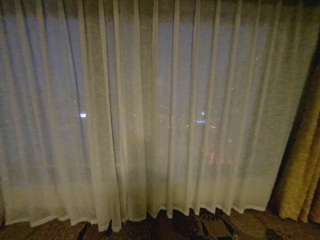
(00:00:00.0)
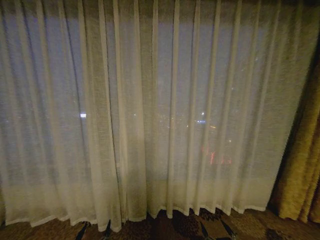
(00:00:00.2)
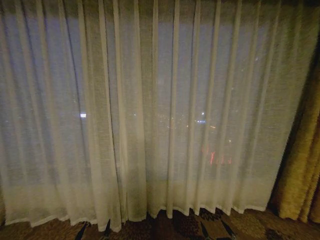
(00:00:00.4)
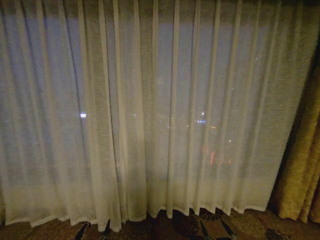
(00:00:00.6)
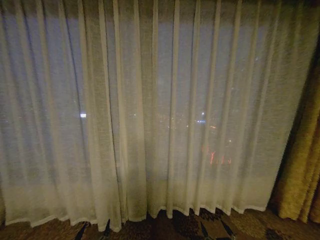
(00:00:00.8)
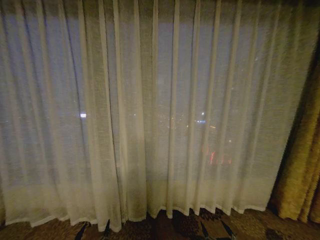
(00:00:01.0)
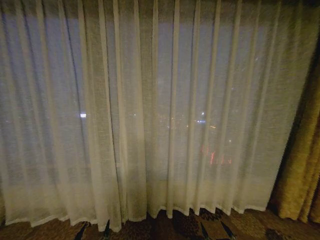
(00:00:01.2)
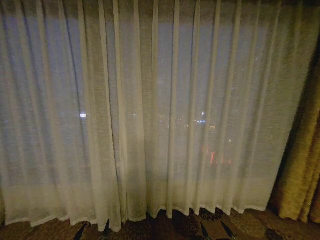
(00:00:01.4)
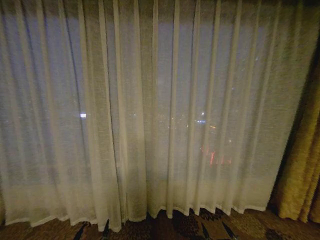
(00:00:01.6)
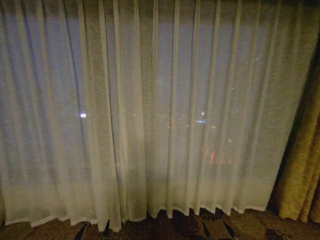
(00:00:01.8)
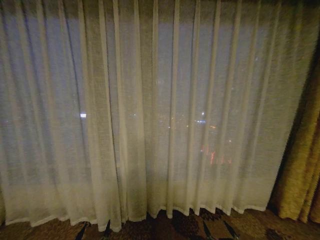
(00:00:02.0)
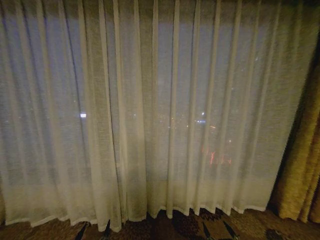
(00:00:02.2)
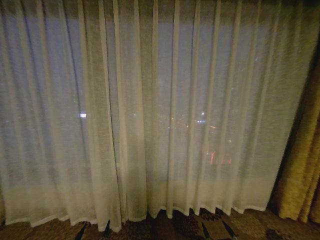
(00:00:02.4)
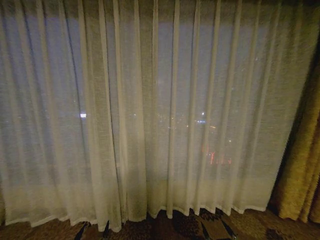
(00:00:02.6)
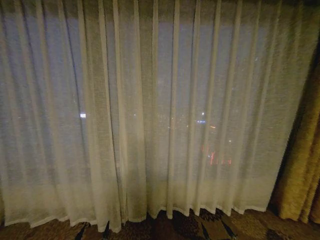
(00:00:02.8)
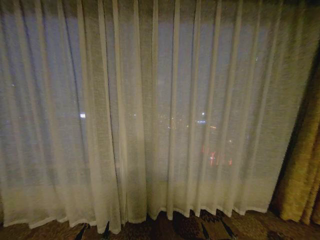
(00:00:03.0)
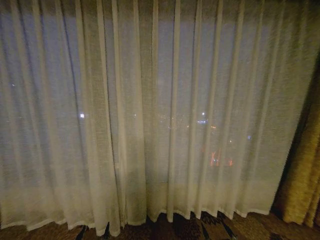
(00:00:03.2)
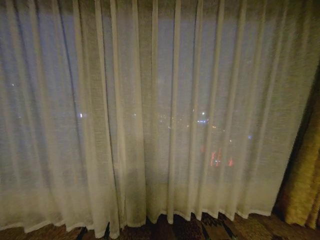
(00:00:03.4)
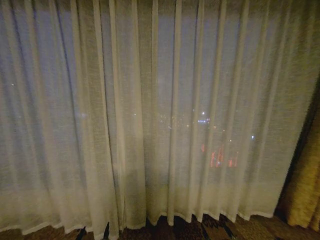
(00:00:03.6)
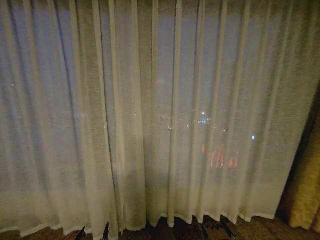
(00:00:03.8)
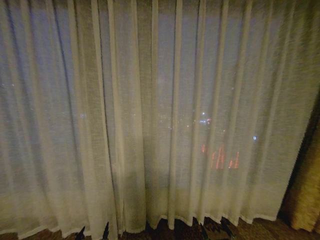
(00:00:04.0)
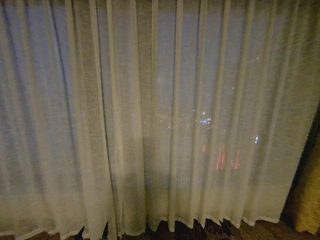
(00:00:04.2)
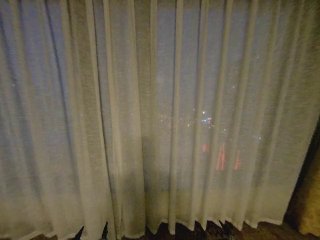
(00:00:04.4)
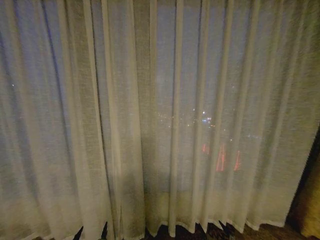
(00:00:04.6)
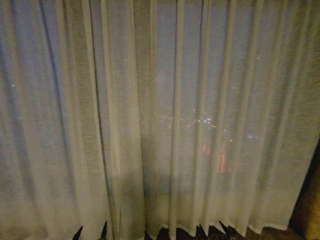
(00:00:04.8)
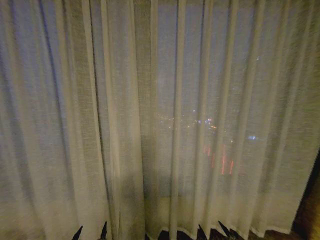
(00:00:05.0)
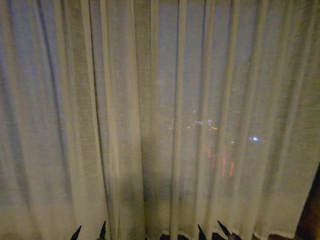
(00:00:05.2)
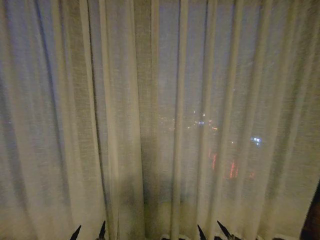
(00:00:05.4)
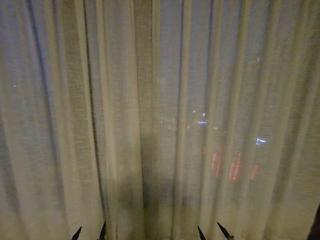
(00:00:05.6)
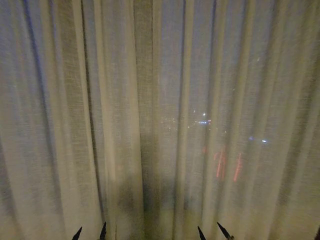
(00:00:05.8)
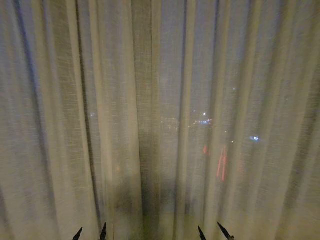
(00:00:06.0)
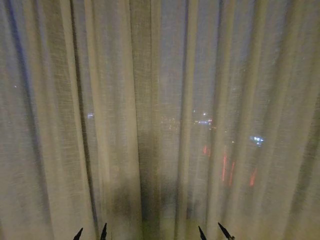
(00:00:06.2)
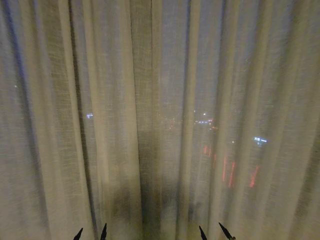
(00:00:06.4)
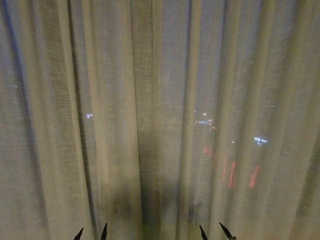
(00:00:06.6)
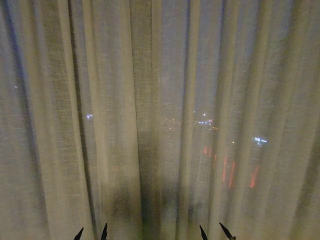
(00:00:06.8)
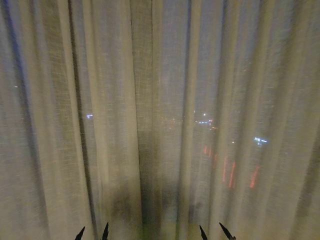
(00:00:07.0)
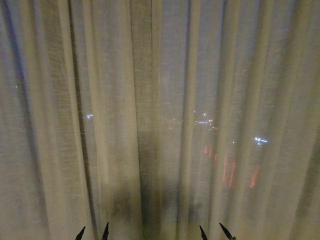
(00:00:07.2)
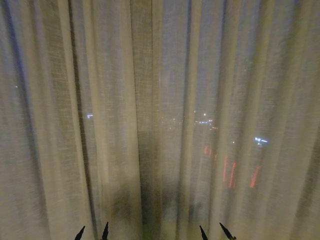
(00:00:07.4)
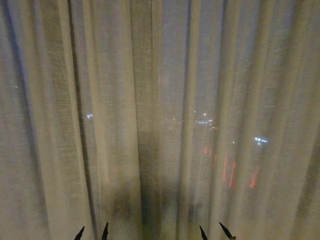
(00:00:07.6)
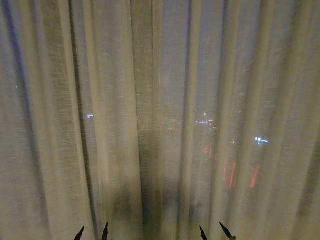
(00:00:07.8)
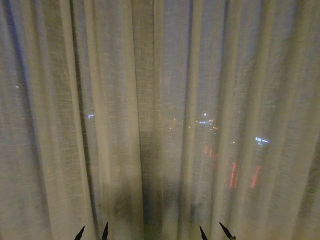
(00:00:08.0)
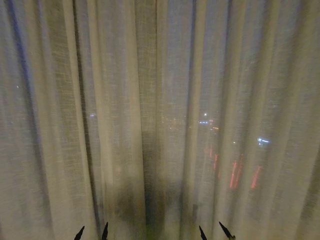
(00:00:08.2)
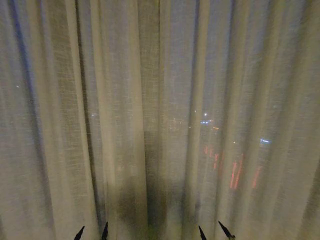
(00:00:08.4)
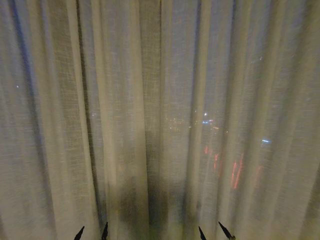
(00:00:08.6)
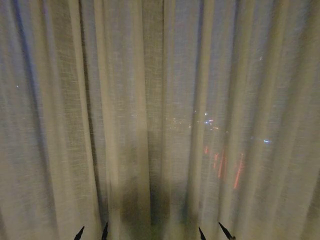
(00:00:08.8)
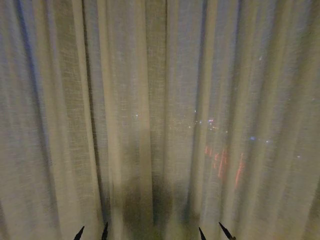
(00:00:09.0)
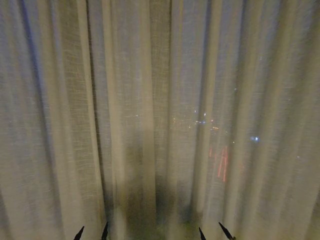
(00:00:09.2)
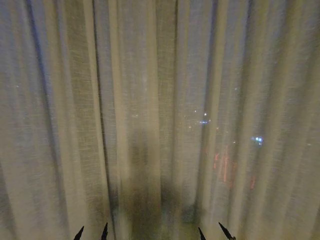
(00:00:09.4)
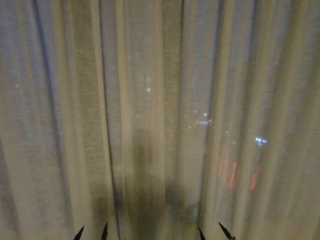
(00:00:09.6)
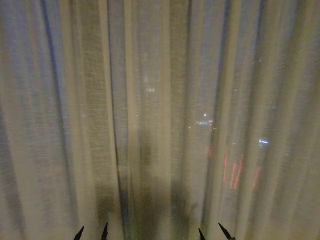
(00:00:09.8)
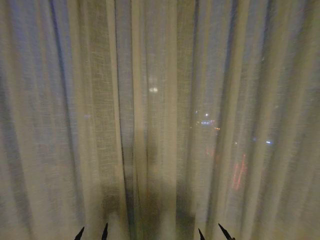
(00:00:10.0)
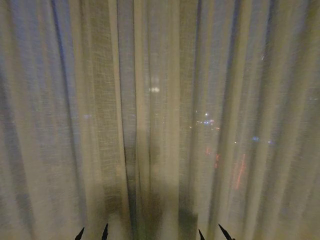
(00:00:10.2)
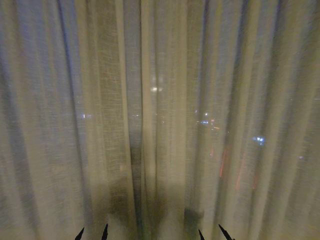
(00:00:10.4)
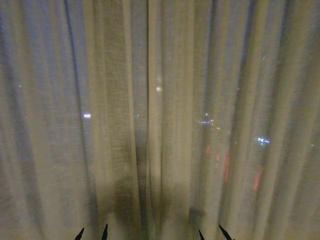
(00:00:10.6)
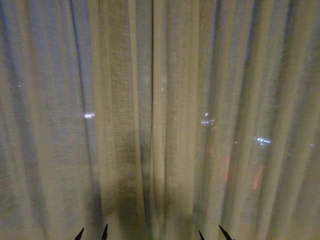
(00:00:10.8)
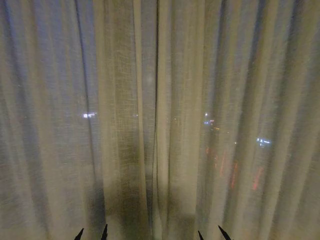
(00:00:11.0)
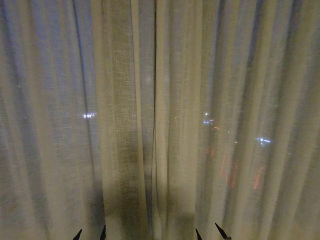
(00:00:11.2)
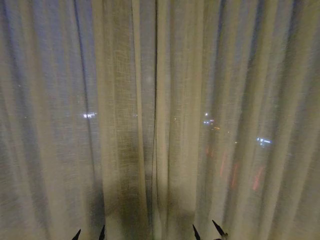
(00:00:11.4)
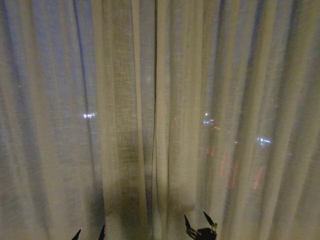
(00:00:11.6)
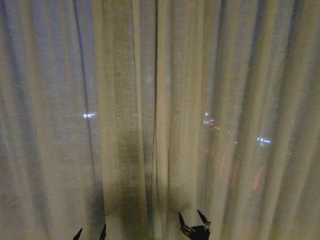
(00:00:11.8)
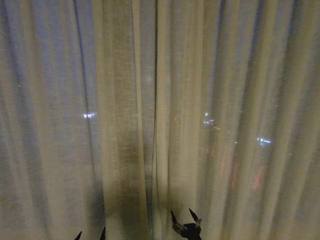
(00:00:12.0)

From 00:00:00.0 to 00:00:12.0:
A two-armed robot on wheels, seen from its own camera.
Task of the whole recording: Open the curtains by pulling them apart, changing their state from closed to fully open.
From 00:00:01.6 to 00:00:03.0: The grippers move only a little.
From 00:00:04.4 to 00:00:06.0: Both grippers stay about where they are.
From 00:00:06.0 to 00:00:07.6: Both grippers stay about where they are.
From 00:00:07.6 to 00:00:10.4: Both grippers stay put.
From 00:00:10.4 to 00:00:12.0: The right gripper heads to the left and forward, covering roughly 10 cm.

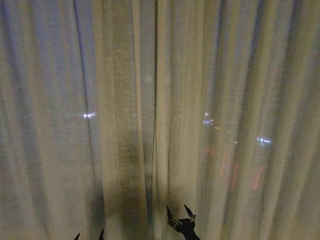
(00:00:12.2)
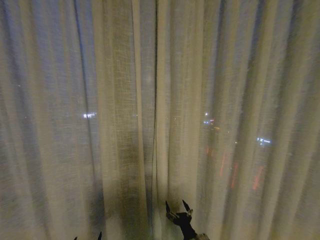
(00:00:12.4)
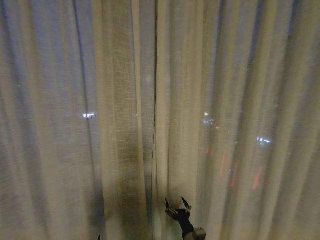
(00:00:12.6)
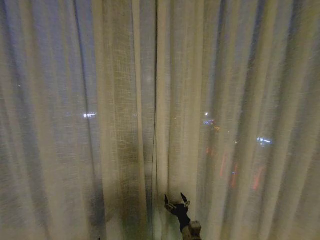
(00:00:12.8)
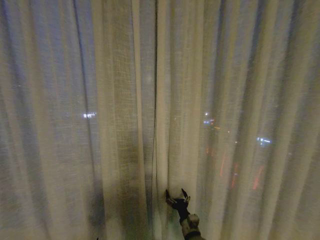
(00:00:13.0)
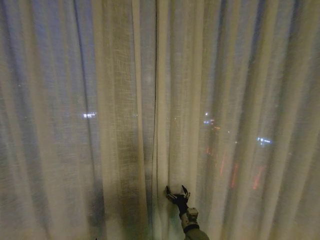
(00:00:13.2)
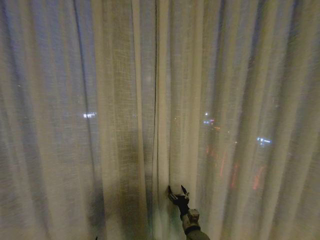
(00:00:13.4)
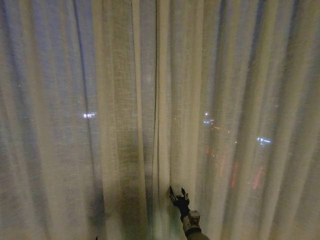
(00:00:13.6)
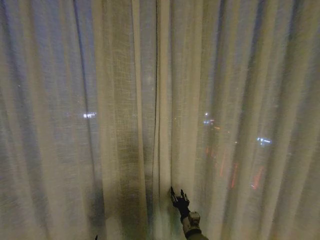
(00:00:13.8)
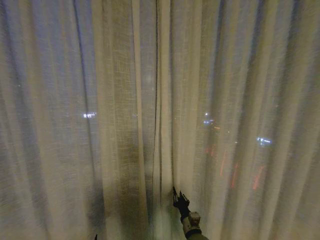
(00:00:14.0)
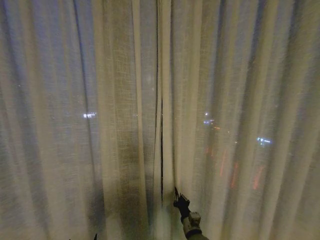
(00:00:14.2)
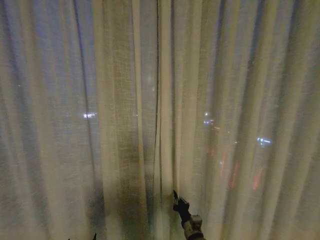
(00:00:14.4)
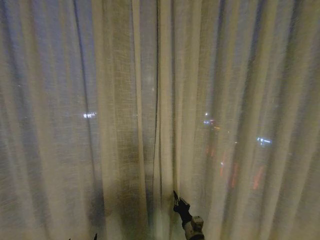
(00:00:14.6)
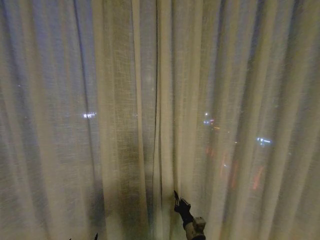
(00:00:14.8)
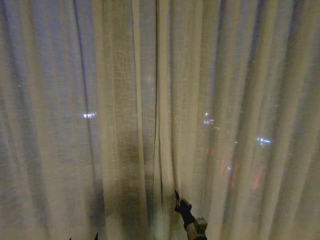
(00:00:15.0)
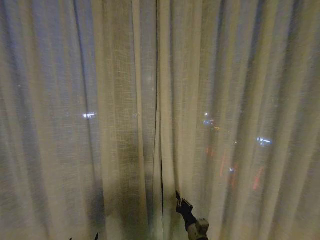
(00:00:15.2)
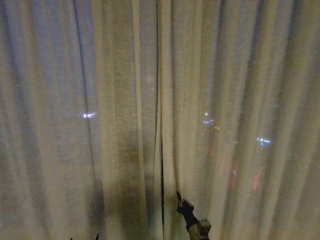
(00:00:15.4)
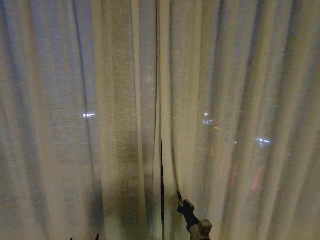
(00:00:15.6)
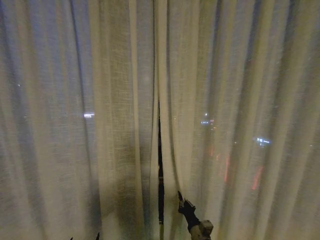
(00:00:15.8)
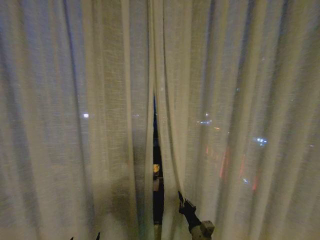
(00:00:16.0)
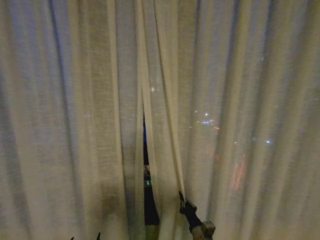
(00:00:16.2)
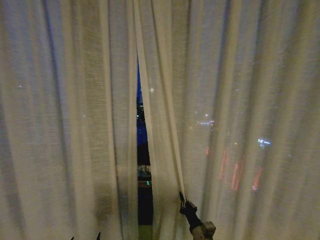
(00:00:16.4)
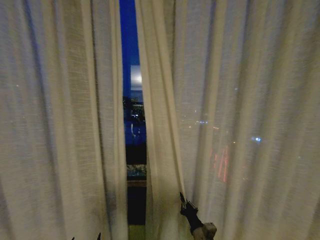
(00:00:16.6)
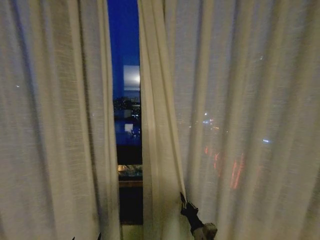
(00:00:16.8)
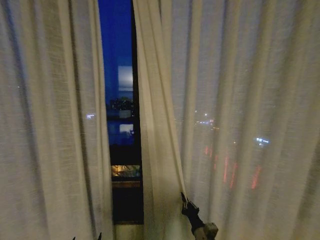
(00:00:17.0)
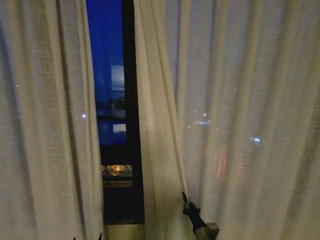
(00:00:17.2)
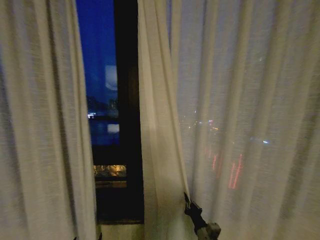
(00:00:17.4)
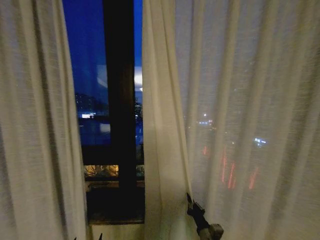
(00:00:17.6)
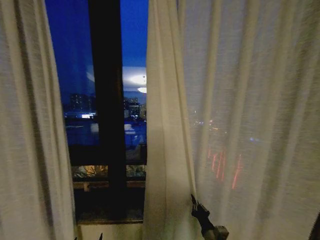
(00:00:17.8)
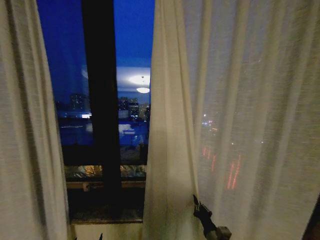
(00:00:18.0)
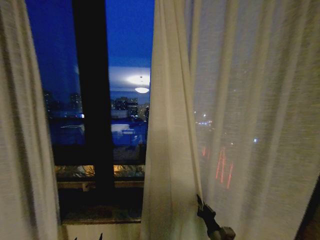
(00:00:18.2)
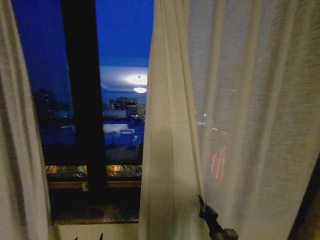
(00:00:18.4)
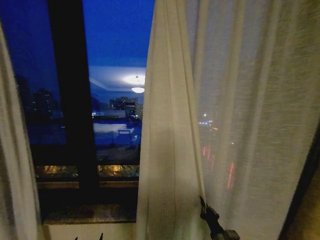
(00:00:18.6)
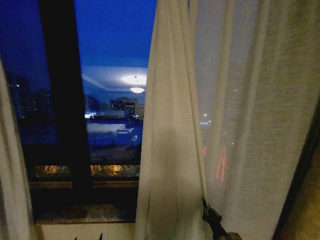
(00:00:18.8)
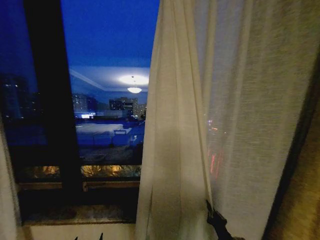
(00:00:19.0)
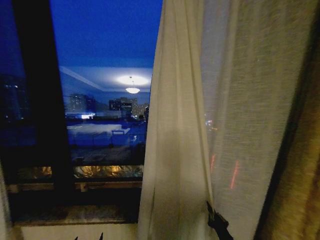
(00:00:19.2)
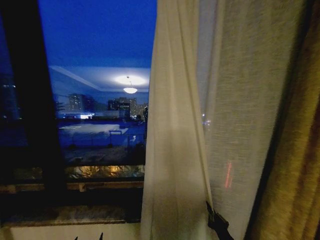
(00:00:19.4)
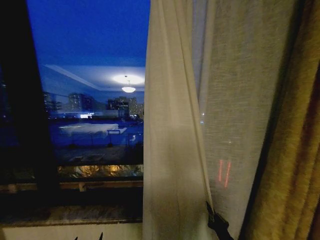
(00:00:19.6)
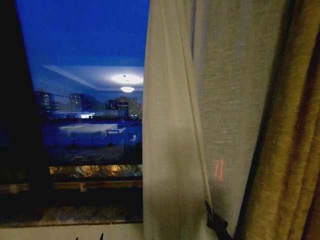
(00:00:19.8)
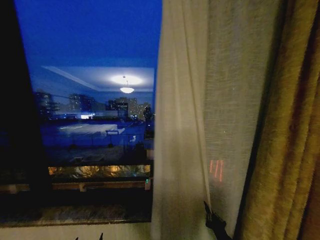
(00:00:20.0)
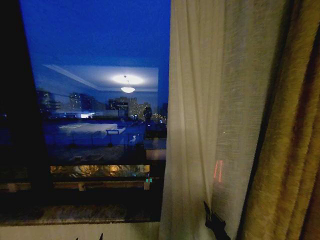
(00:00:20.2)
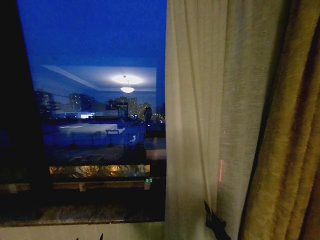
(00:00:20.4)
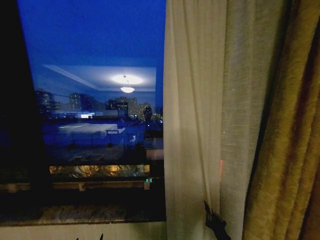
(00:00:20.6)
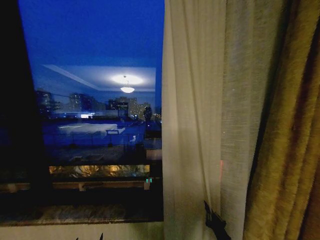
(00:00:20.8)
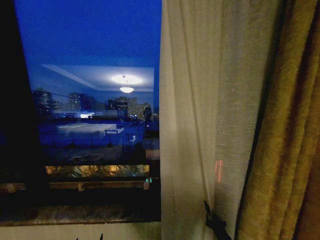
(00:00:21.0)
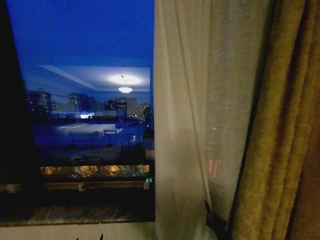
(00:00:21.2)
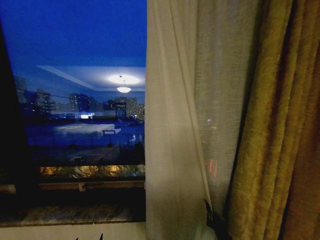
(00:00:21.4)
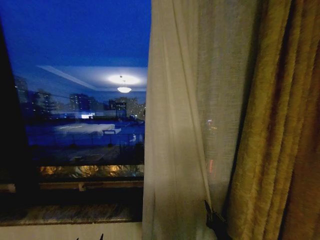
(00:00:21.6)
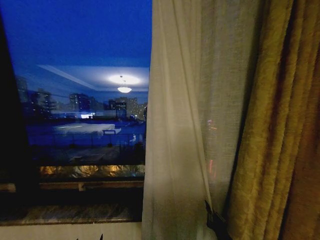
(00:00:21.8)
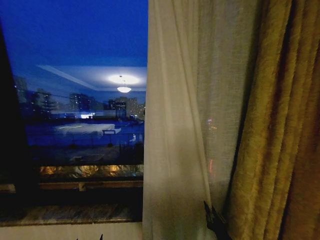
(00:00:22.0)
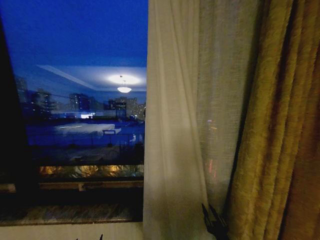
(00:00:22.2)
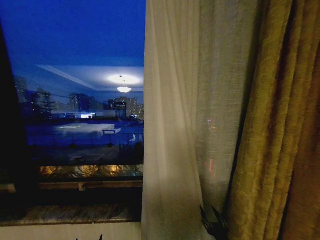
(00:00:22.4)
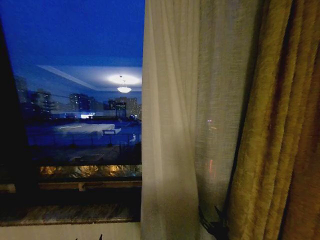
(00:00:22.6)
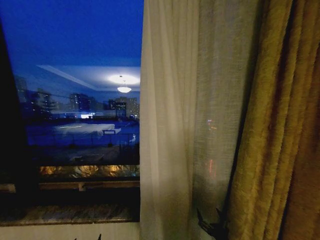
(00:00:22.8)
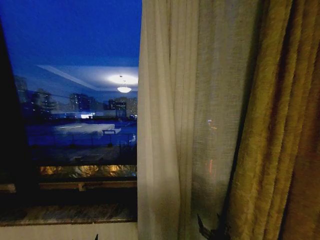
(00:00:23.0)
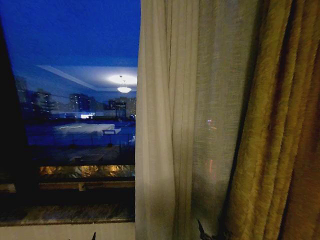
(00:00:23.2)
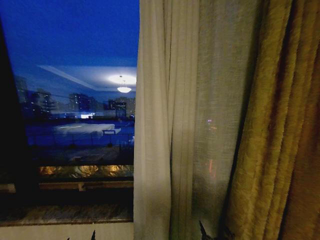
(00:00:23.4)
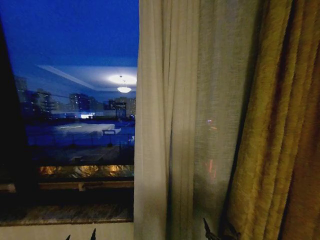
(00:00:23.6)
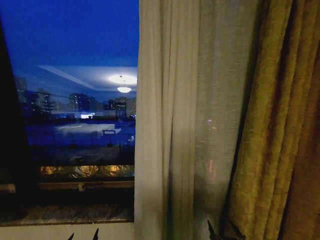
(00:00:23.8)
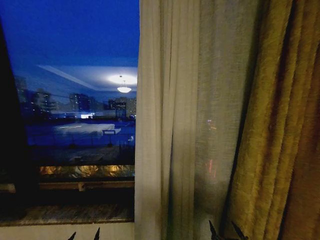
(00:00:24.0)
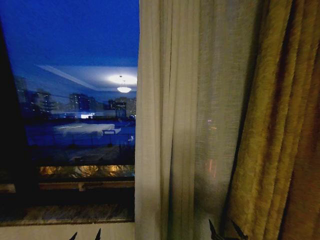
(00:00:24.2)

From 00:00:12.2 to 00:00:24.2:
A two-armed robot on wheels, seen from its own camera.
Task of the whole recording: Open the curtains by pulling them apart, changing their state from closed to fully open.
From 00:00:12.2 to 00:00:13.8: The right gripper heads forward, covering roughly 10 cm, and closes up.
From 00:00:13.8 to 00:00:15.2: The right gripper closes its fingers.
From 00:00:16.6 to 00:00:18.2: The right gripper is displaced to the right by roughly 5 cm.
From 00:00:18.2 to 00:00:19.8: The right gripper ends up some 5 cm from where it was.
From 00:00:21.2 to 00:00:22.6: The right gripper opens.
From 00:00:22.6 to 00:00:24.2: The right gripper is displaced backward by roughly 5 cm.
